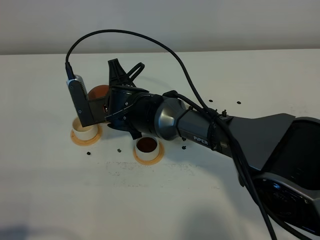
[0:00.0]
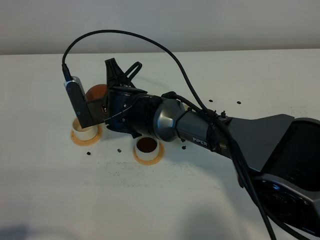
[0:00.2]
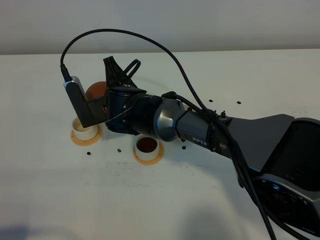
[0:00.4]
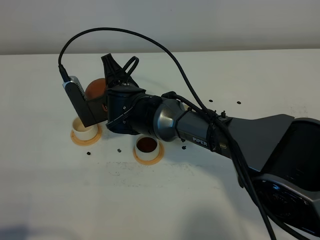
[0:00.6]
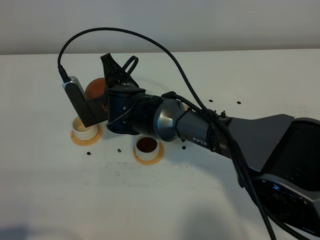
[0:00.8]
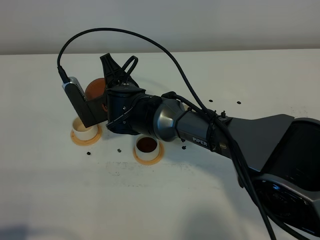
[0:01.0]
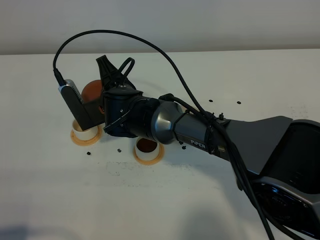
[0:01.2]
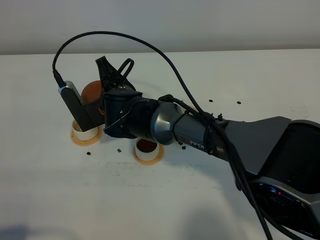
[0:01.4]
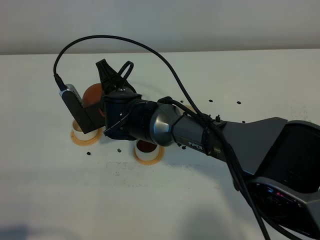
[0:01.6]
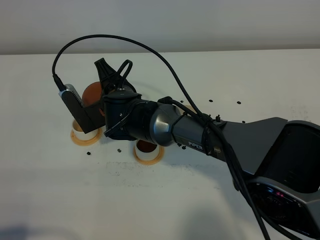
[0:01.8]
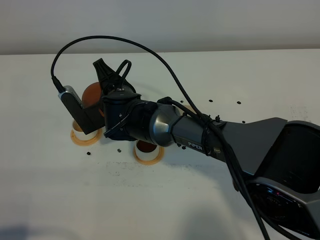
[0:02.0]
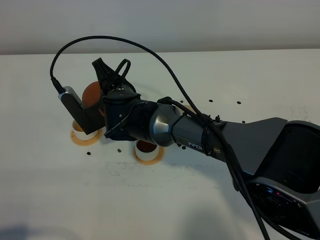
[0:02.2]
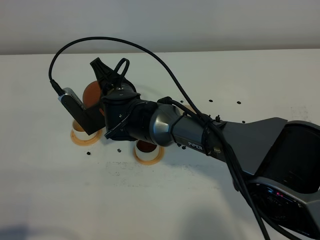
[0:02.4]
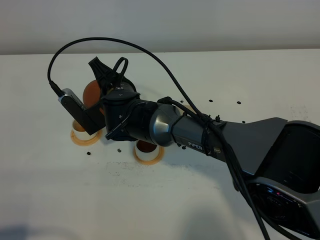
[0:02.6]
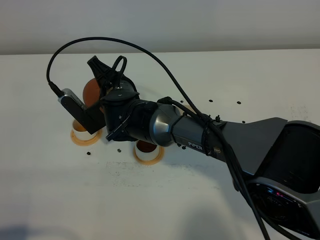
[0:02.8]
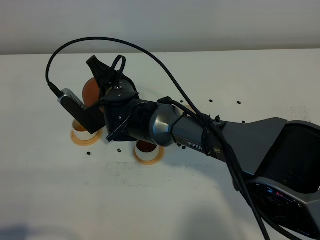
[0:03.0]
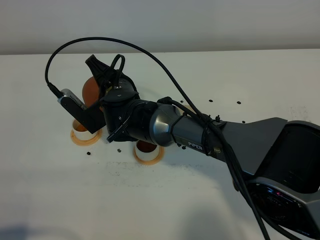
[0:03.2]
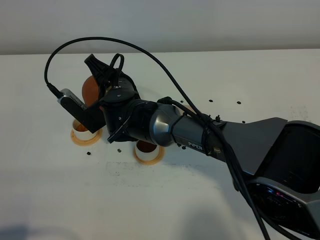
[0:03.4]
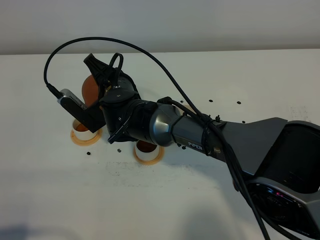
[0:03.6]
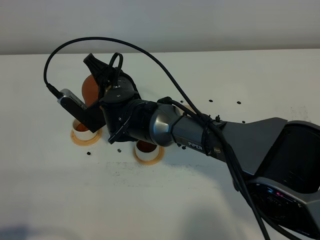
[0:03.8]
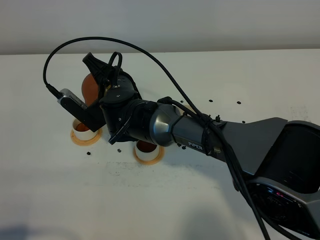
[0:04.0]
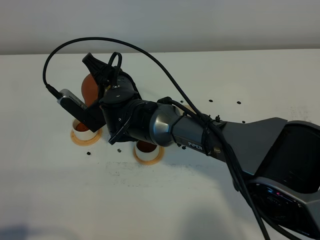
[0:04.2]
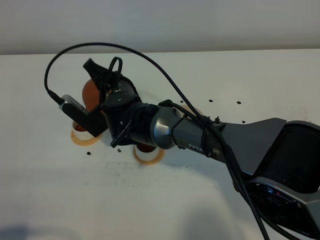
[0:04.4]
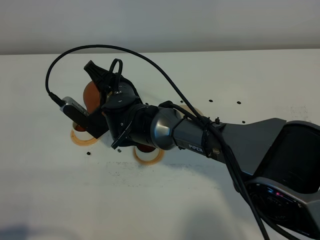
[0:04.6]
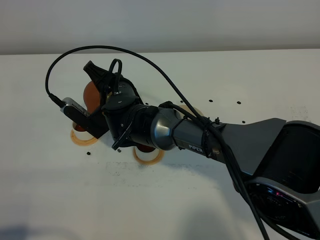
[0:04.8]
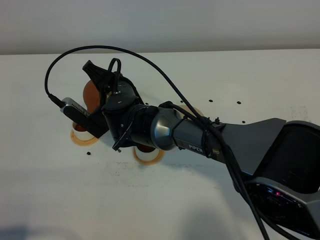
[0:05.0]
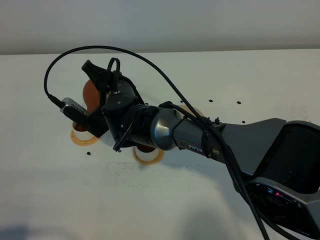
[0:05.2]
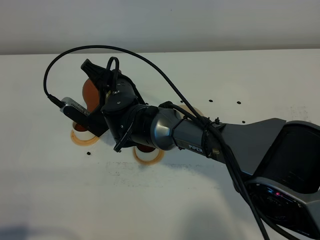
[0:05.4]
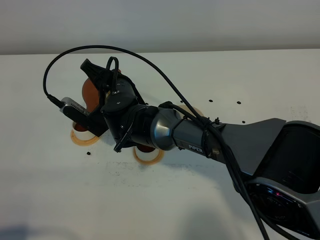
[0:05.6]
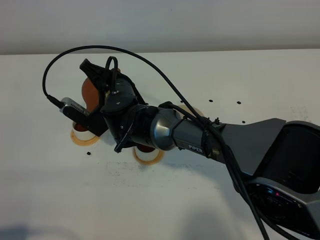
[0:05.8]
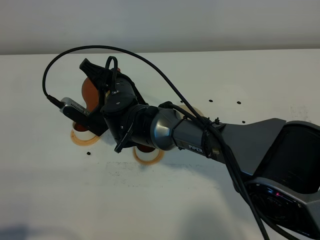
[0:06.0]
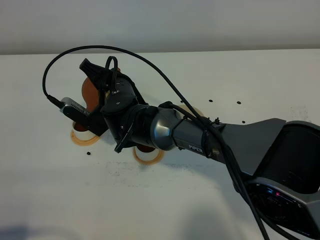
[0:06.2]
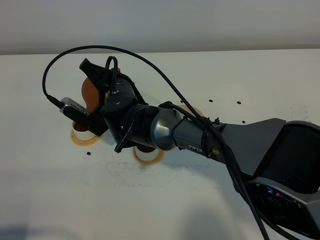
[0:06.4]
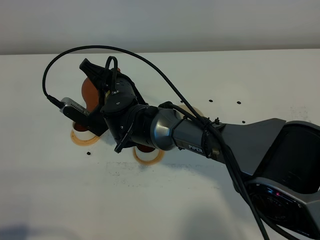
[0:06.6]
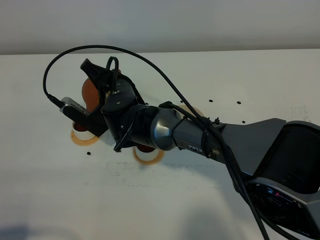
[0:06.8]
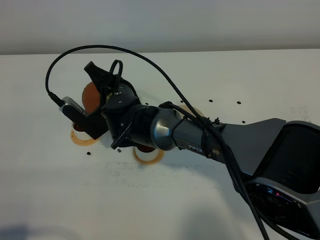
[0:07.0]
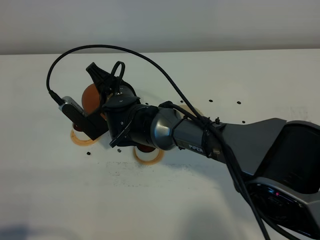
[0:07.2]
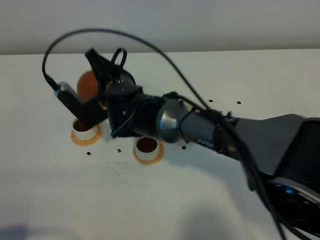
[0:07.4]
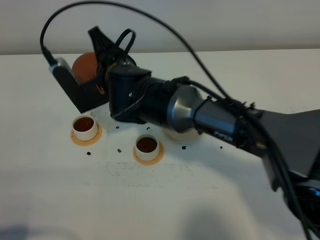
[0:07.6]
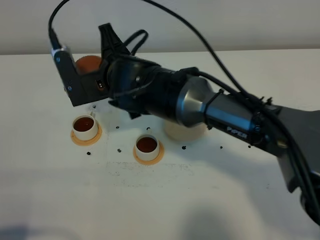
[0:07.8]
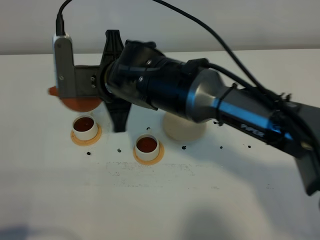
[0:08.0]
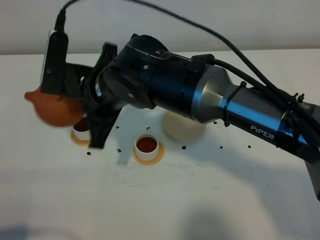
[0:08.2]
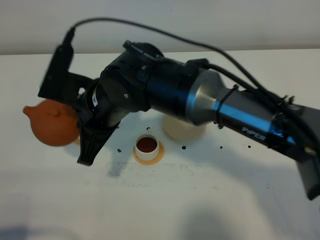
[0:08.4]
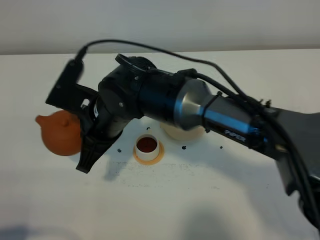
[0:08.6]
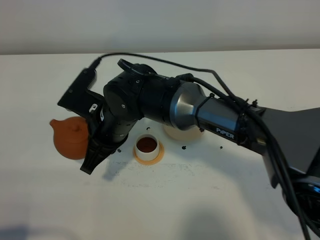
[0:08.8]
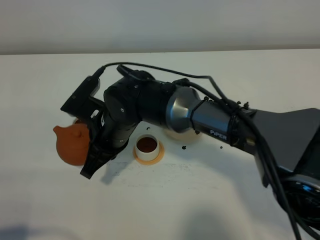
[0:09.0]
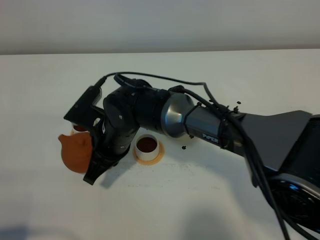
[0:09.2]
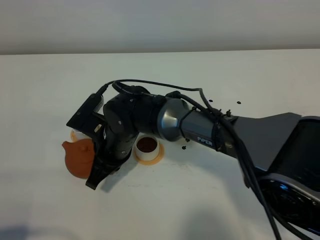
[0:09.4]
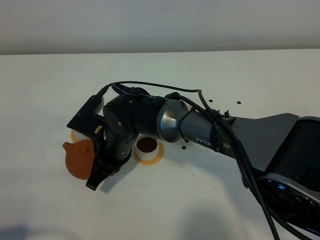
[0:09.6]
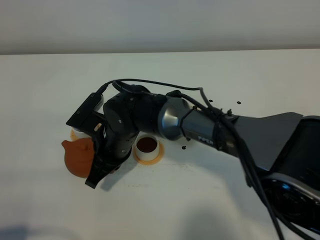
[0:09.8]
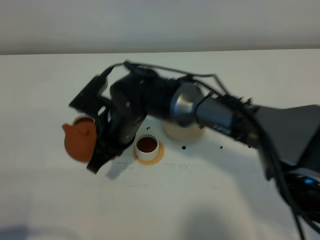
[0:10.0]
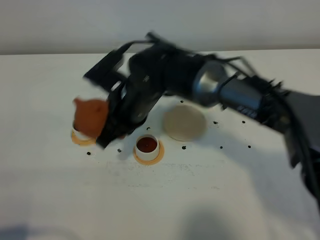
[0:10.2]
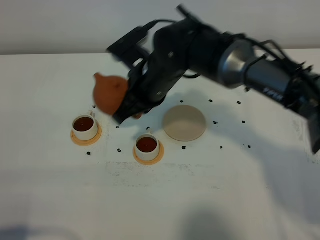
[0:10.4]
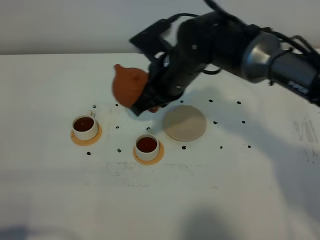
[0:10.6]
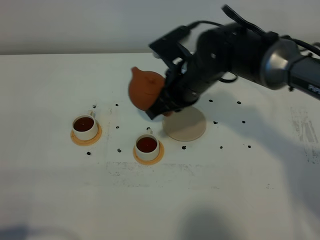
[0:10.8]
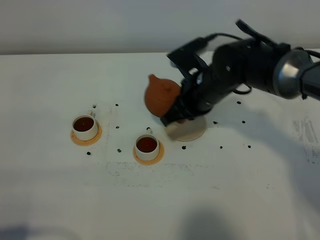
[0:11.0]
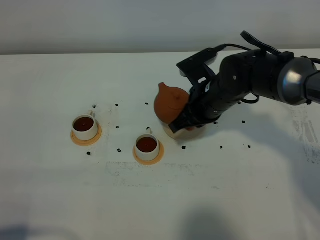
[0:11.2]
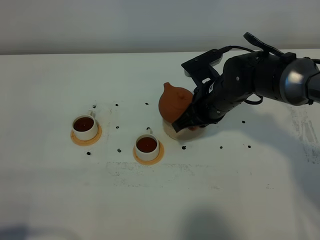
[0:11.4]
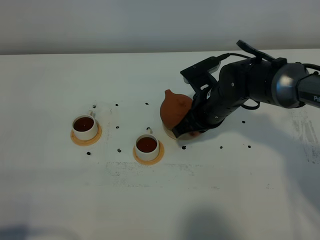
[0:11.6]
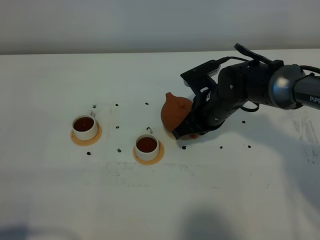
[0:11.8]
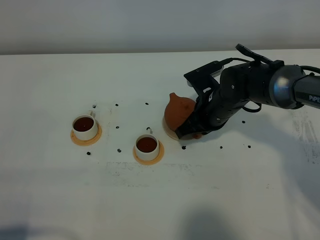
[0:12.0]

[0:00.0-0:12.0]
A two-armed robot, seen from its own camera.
Task of the whole recording: grasp the brown teapot and pour the tea into the two white teacups one by one, put the brown teapot back in its original place.
Step, 0:00.0 to 0:07.4: Pour tea into the teacup with the right gripper.
0:00.0 to 0:01.6: The grippers make only small movements.
0:01.6 to 0:04.4: The grippers move only a little.
0:04.4 to 0:06.0: The grippers move only a little.
0:06.0 to 0:07.6: The right gripper shifts about 5 cm upward.
0:07.6 to 0:09.0: The right gripper heads downward, covering roughly 5 cm.
0:09.0 to 0:10.4: The right gripper moves to the right, upward and forward, about 10 cm.
0:10.4 to 0:12.0: The right gripper is displaced to the right and downward by some 15 cm.

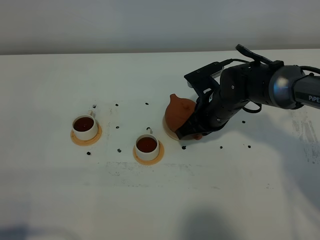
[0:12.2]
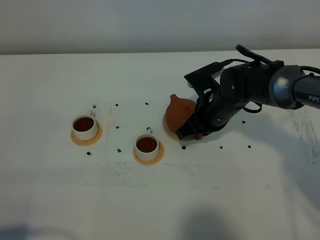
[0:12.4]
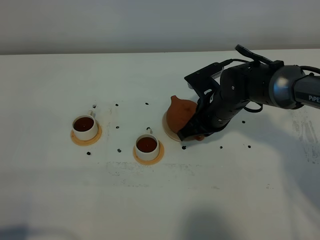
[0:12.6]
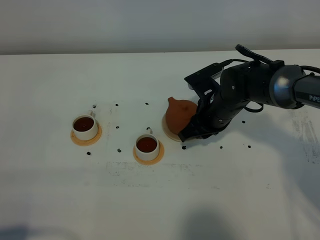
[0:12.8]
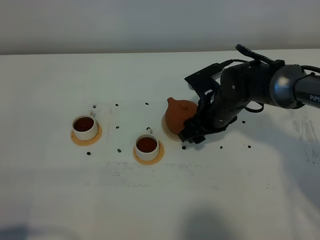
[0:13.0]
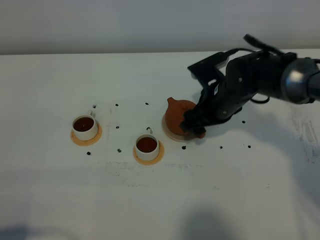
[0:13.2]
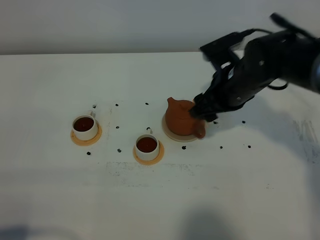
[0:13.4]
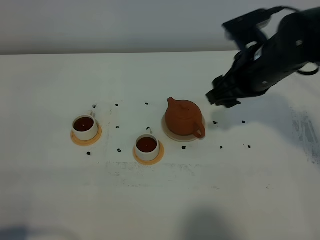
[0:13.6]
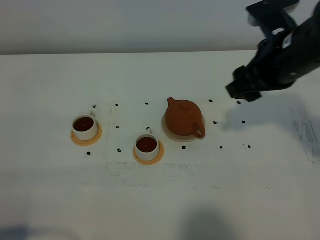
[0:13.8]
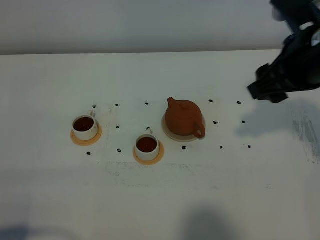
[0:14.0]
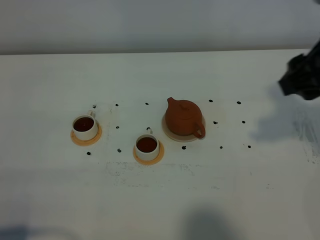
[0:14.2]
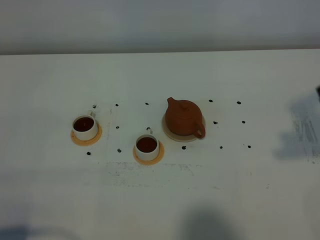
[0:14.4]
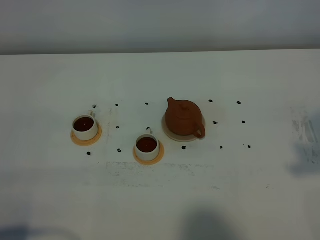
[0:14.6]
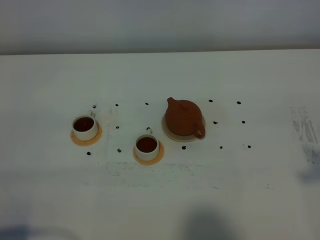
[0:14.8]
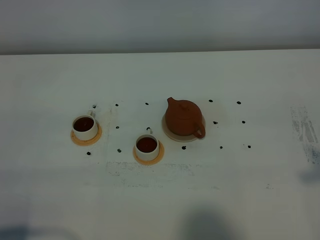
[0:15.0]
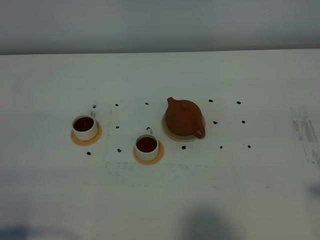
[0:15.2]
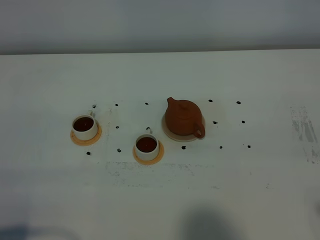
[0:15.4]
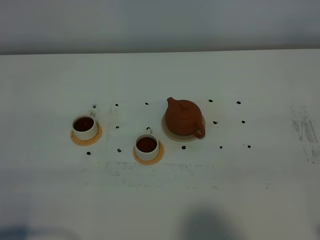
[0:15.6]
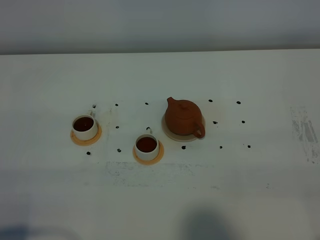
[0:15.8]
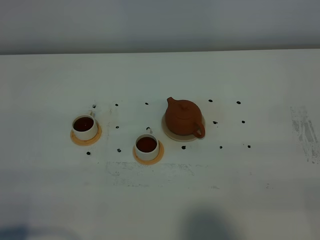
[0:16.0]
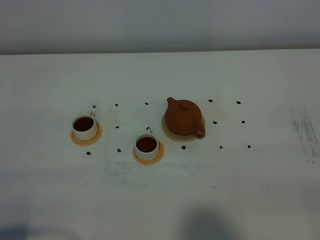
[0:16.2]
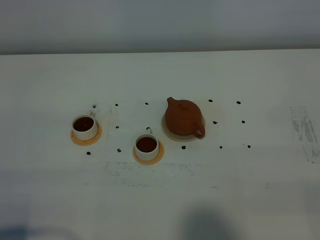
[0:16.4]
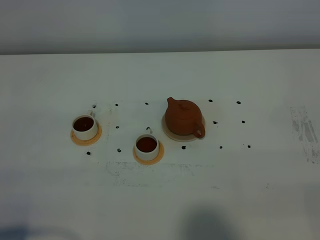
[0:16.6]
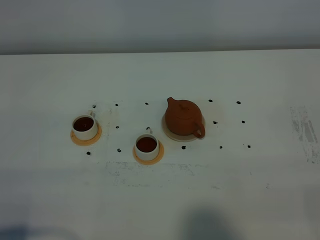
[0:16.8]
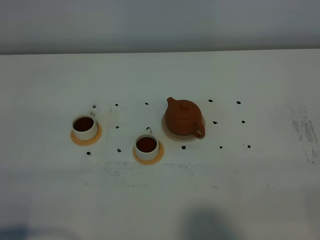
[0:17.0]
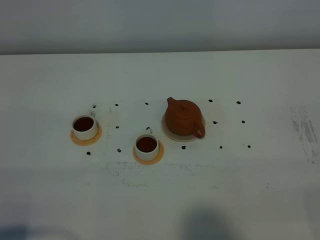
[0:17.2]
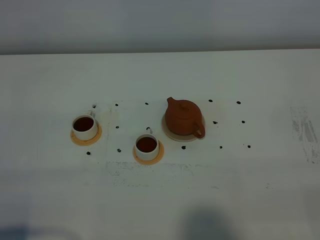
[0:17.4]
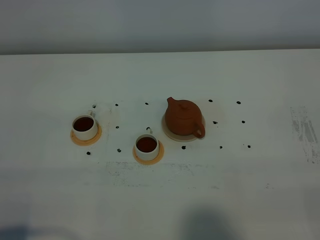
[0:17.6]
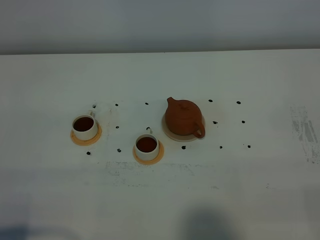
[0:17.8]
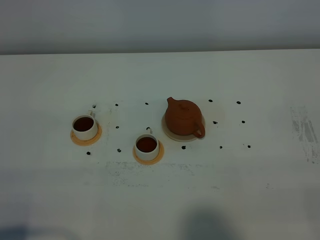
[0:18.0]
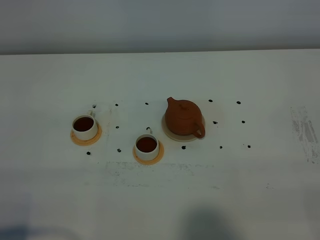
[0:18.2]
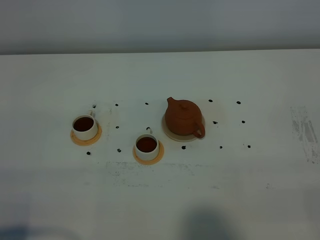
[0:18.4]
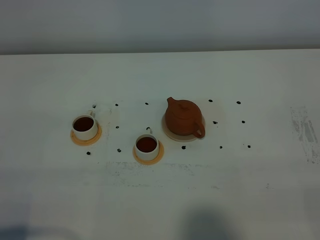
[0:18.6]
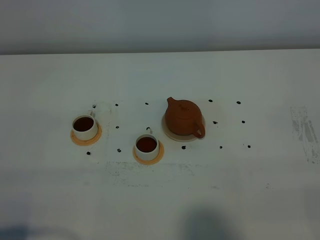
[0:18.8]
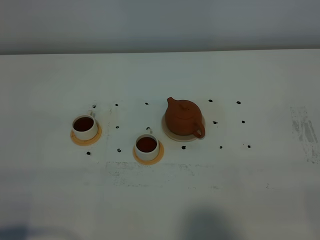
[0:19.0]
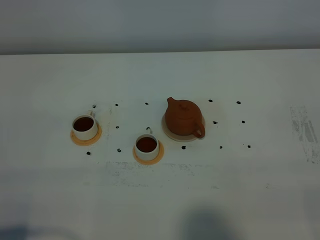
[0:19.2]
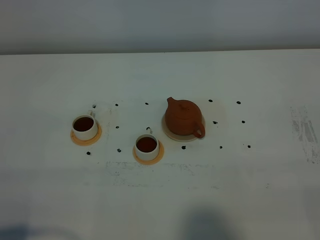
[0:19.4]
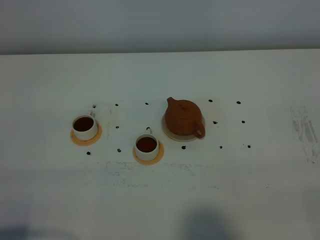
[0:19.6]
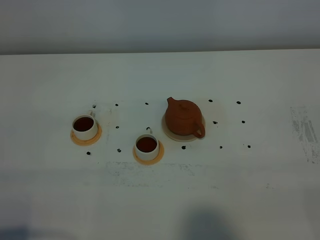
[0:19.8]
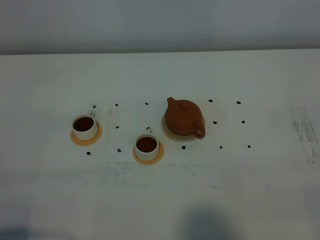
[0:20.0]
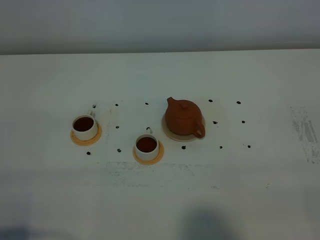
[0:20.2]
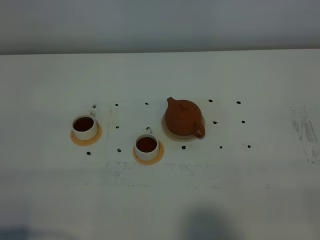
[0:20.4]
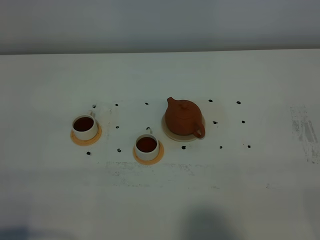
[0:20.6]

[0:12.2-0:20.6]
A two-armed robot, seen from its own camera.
Task of the whole recording: grasp the brown teapot and pour the tea into the two white teacups one by one, put the brown teapot back in its original place.
0:12.2 to 0:13.6: The right gripper goes some 15 cm upward, and opens.
0:13.6 to 0:15.0: The right gripper moves backward, upward and to the right, roughly 30 cm.
0:17.8 to 0:20.6: The two grippers keep their place.
